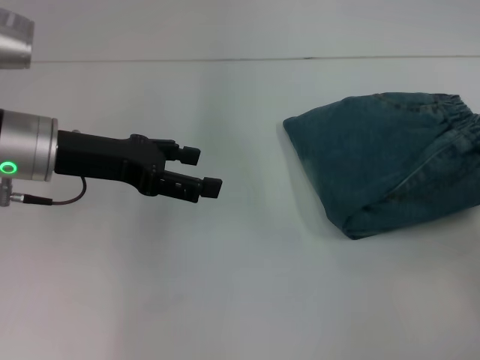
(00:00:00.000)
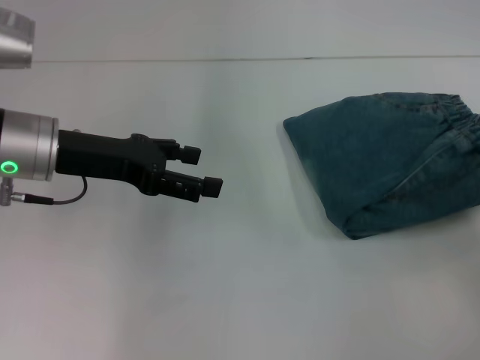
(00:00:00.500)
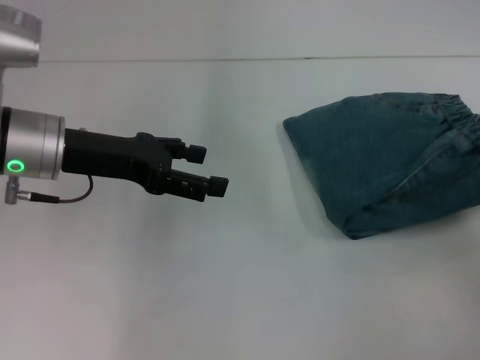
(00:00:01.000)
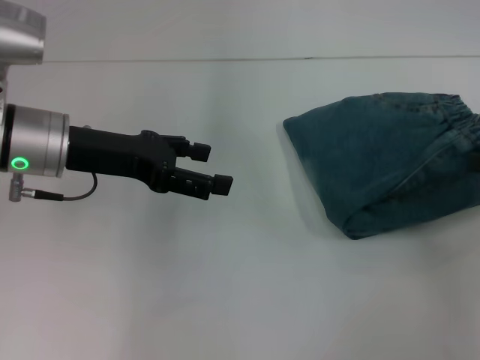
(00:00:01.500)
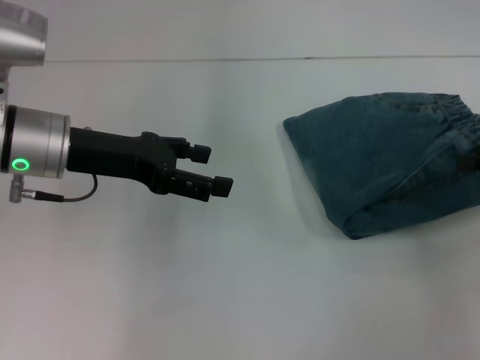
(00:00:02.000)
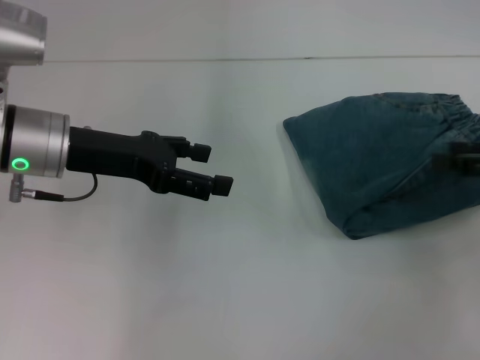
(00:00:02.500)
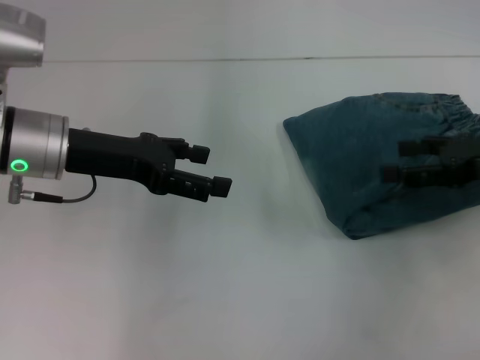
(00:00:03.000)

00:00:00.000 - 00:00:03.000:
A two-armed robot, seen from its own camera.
00:00:00.000 - 00:00:01.500: The right gripper goes roughly 5 cm to the left.
00:00:01.500 - 00:00:03.000: The right gripper goes approximately 5 cm to the left.

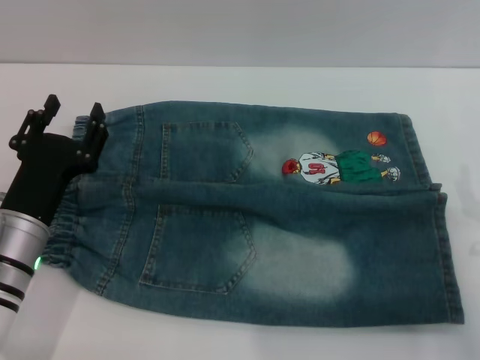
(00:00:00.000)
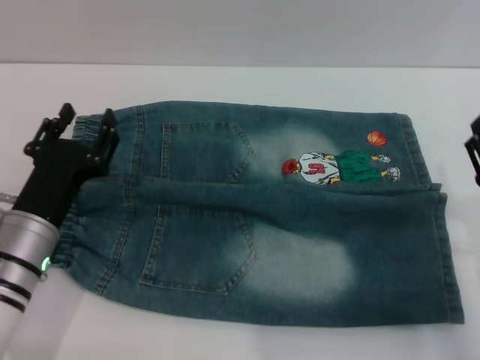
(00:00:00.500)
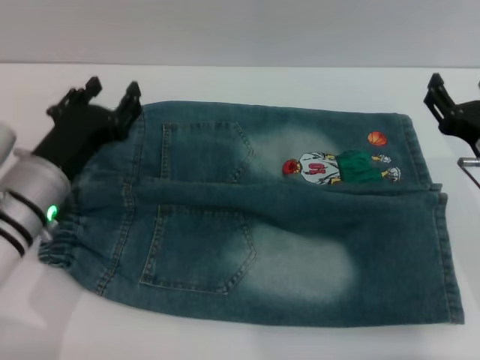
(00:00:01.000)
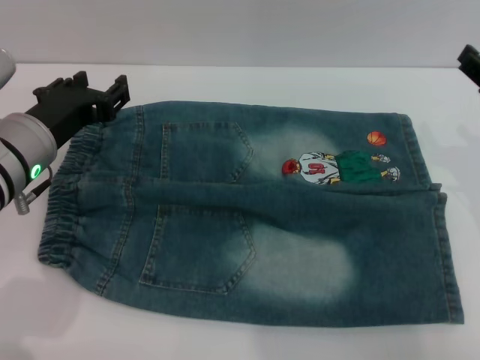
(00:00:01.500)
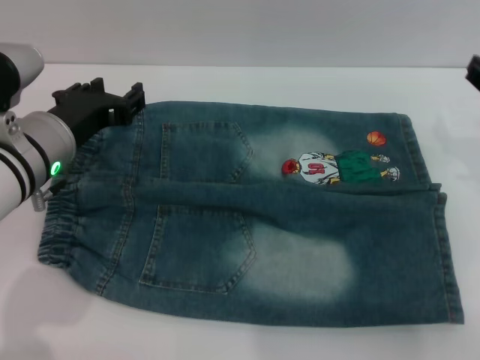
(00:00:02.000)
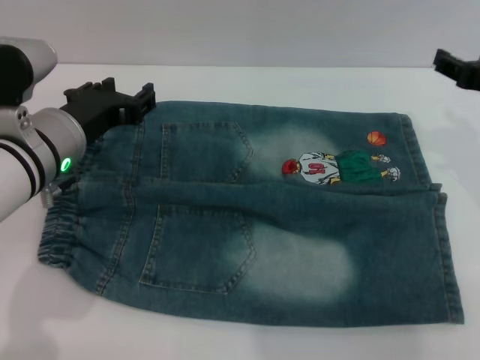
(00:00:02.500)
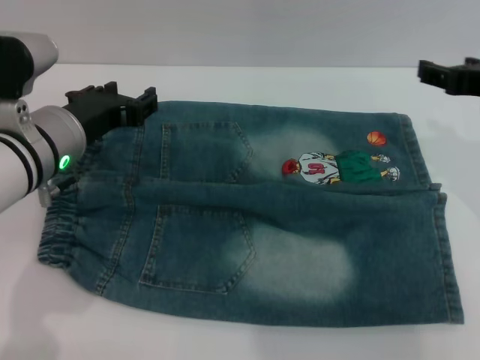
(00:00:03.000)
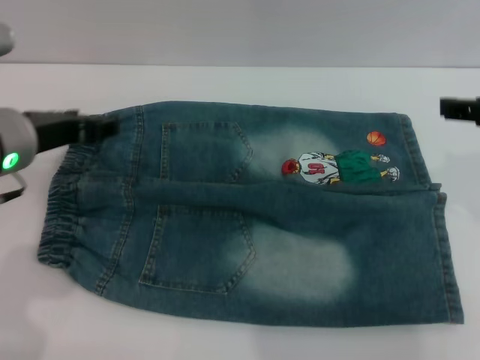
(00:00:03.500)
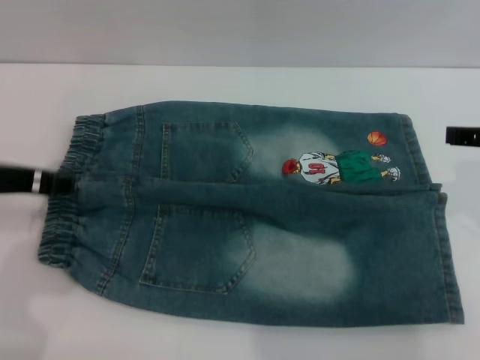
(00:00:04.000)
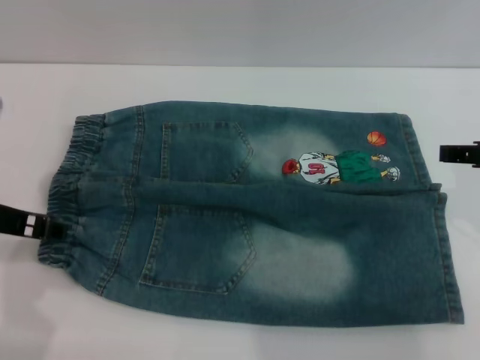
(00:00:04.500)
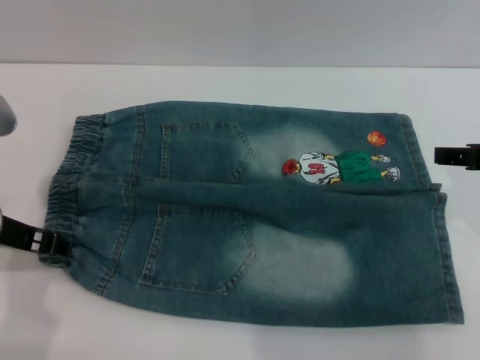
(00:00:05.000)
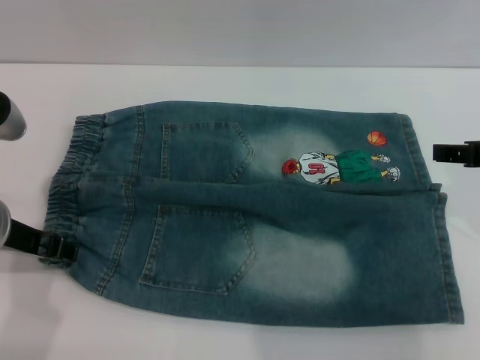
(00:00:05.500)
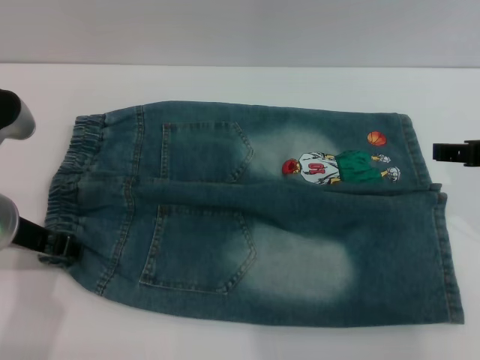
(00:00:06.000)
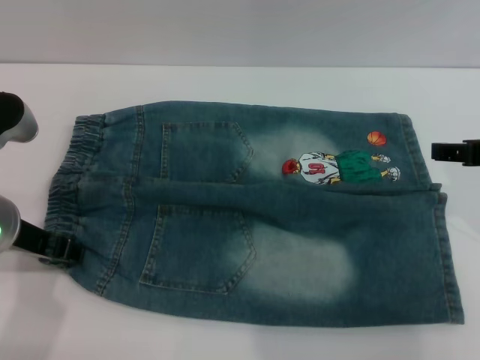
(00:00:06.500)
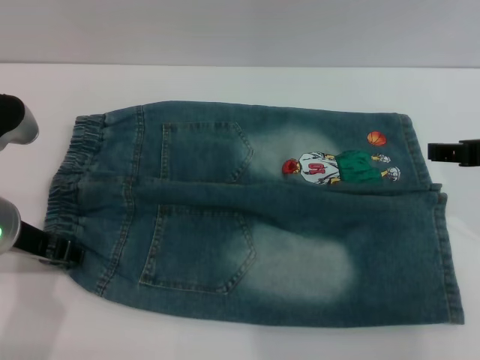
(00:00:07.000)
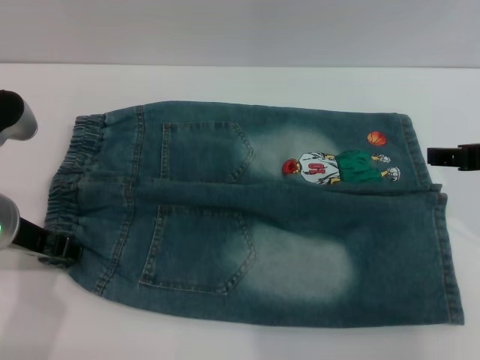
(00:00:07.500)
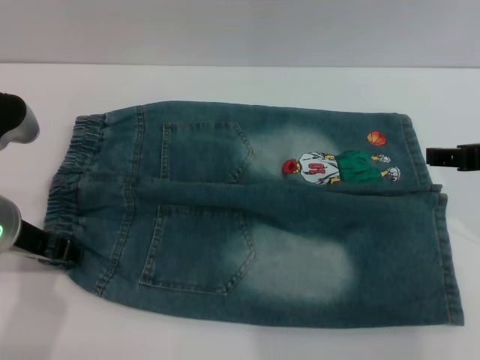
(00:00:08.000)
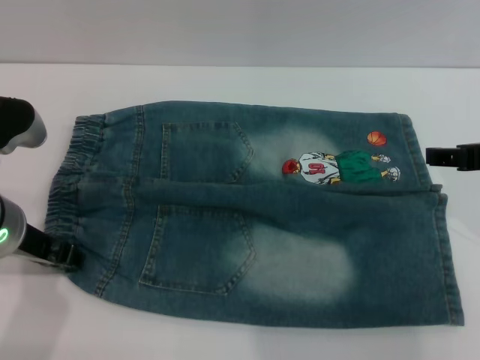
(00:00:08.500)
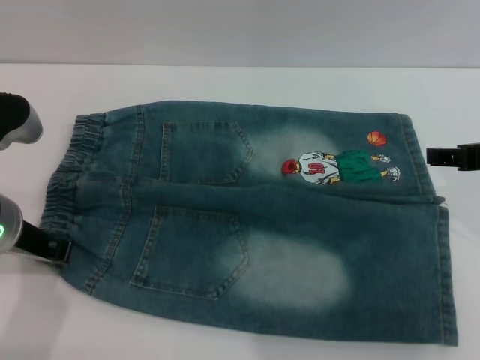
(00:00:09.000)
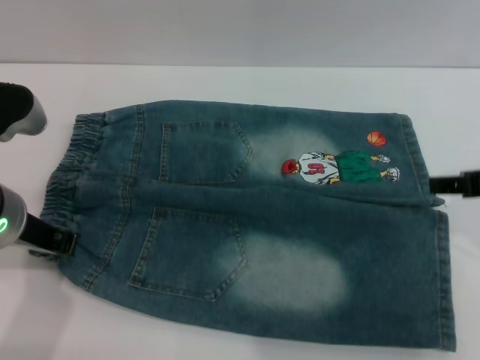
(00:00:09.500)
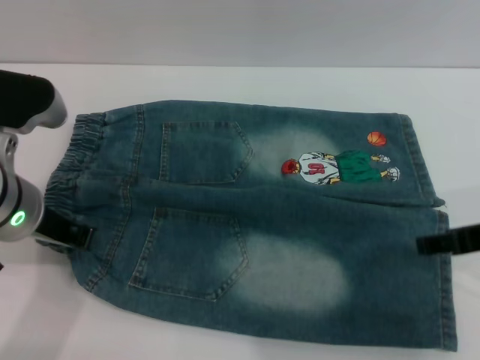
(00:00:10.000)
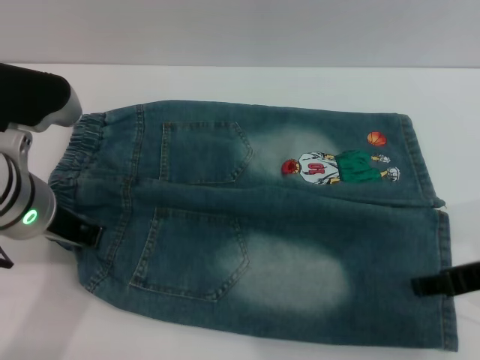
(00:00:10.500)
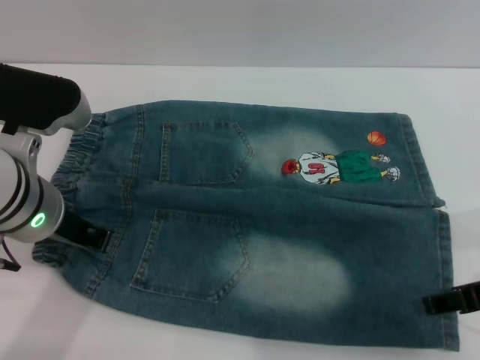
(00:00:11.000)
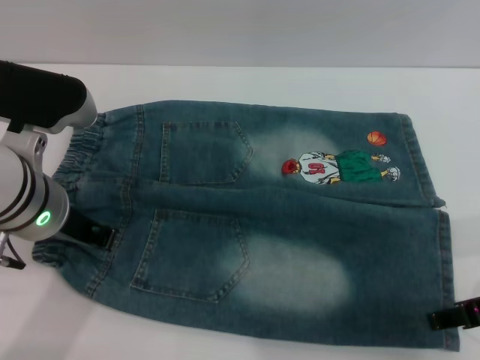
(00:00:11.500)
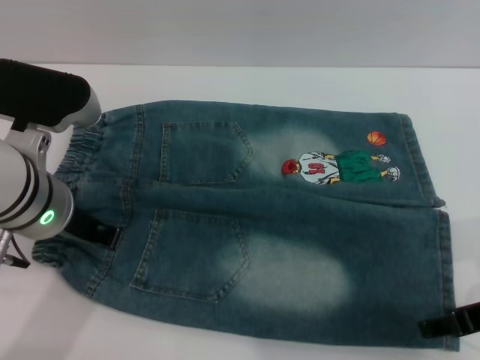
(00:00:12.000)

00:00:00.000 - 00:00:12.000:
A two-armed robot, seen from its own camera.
00:00:00.000 - 00:00:02.000: The left gripper goes about 10 cm upward and forward.
00:00:02.000 - 00:00:04.000: The right gripper travels upward by about 10 cm, while the left gripper is displaced upward by some 5 cm.
00:00:04.000 - 00:00:06.000: The grippers stay close to where they were, moving slightly.
00:00:06.000 - 00:00:08.000: Both grippers stay about where they are.
00:00:08.000 - 00:00:10.000: The left gripper closes.
00:00:10.000 - 00:00:12.000: There are only small adjustments of the grippers.

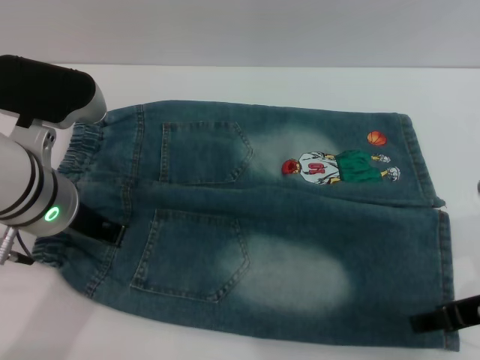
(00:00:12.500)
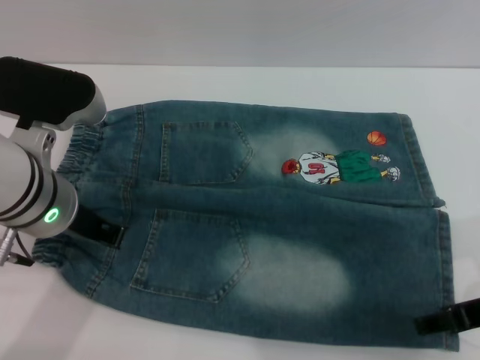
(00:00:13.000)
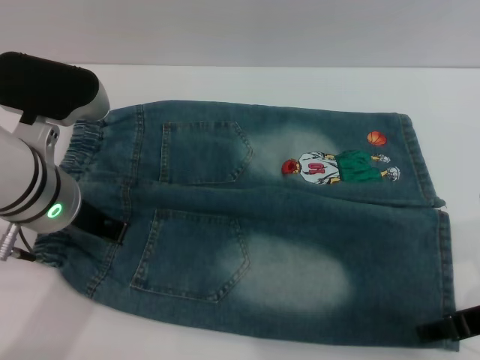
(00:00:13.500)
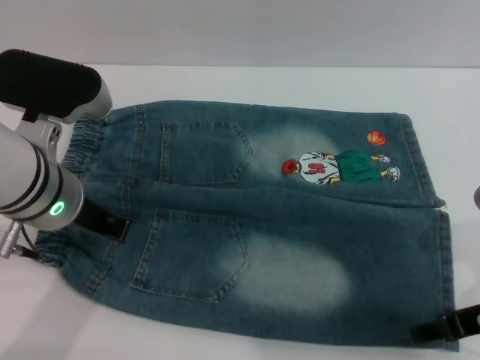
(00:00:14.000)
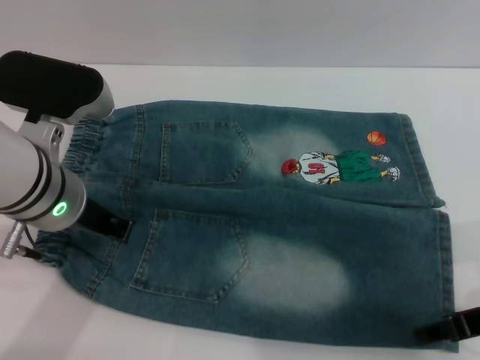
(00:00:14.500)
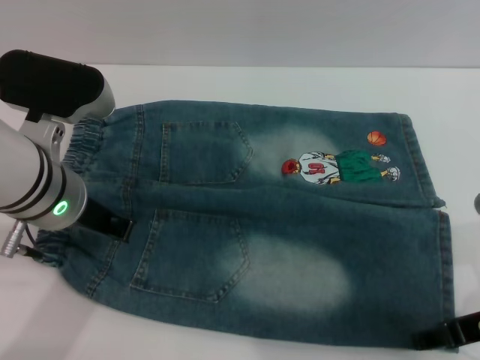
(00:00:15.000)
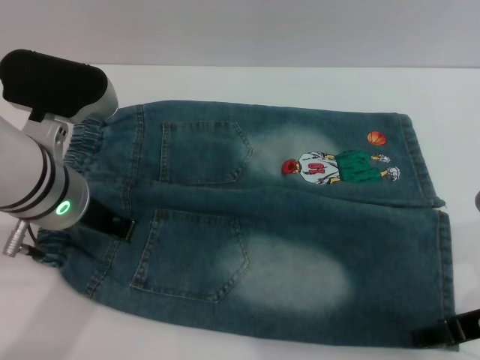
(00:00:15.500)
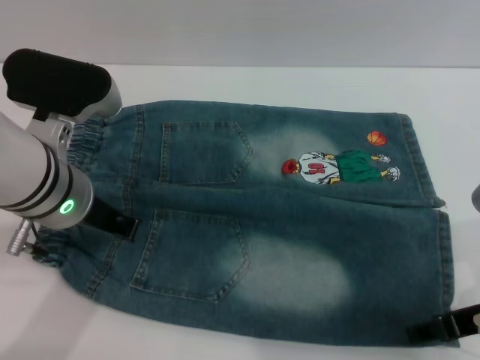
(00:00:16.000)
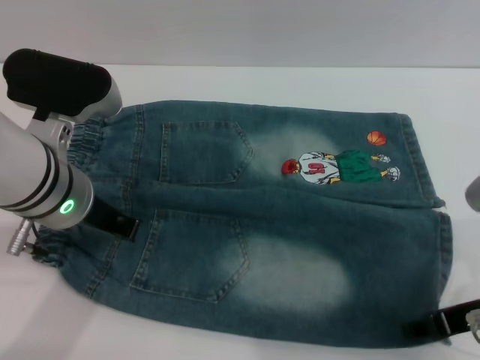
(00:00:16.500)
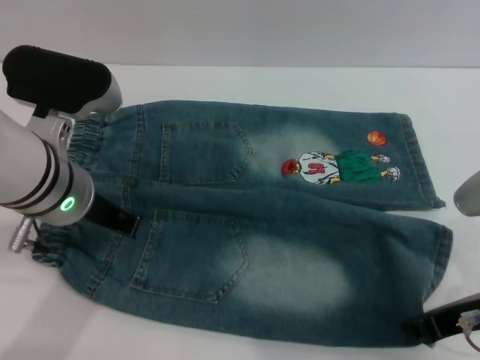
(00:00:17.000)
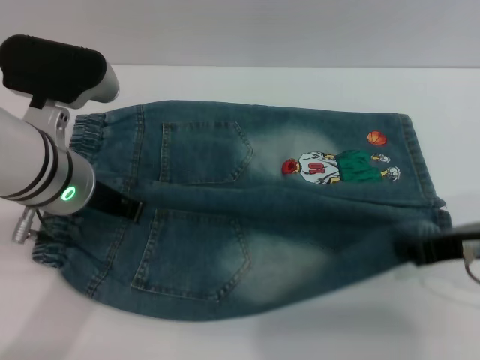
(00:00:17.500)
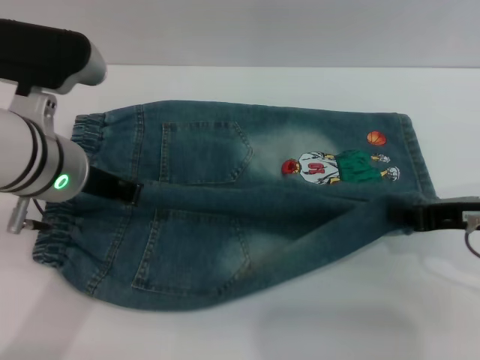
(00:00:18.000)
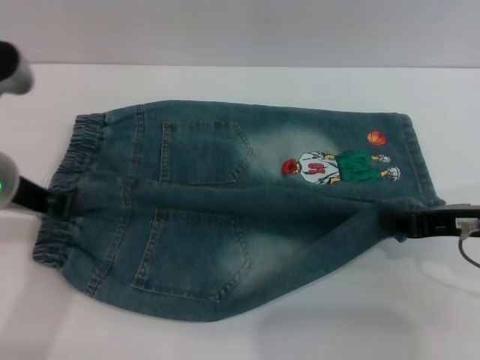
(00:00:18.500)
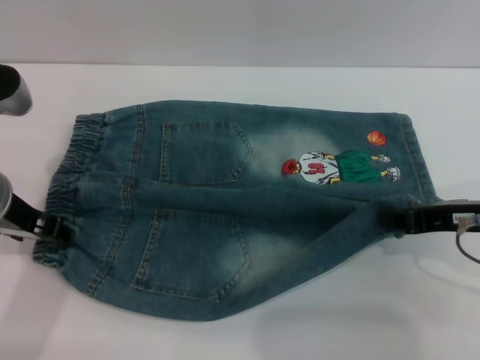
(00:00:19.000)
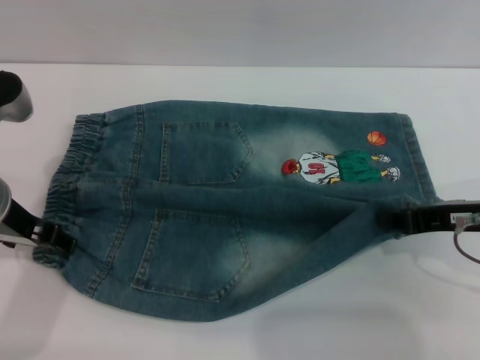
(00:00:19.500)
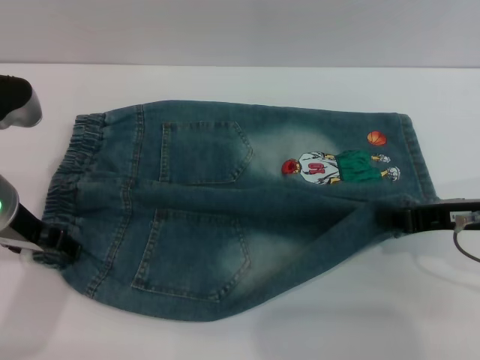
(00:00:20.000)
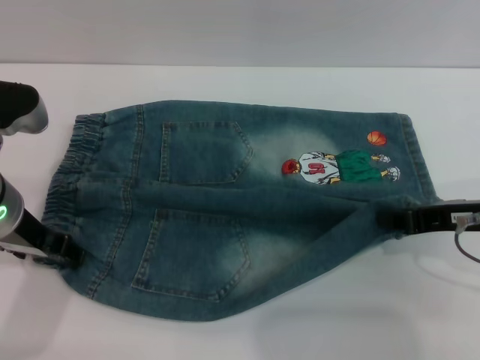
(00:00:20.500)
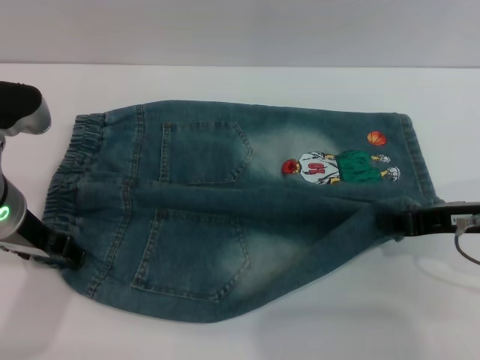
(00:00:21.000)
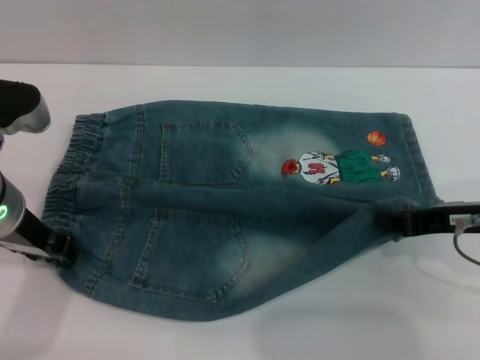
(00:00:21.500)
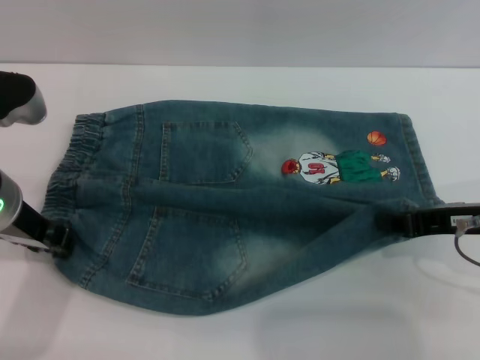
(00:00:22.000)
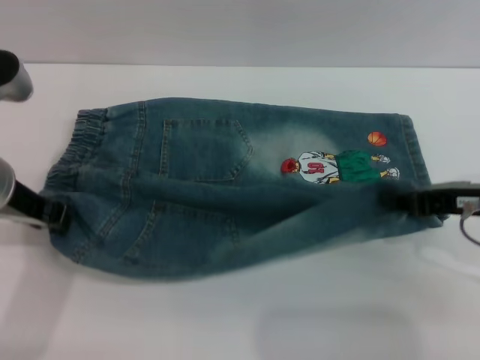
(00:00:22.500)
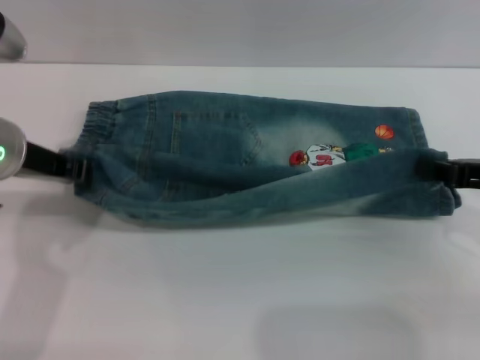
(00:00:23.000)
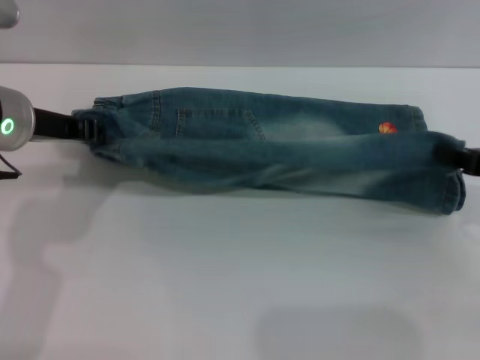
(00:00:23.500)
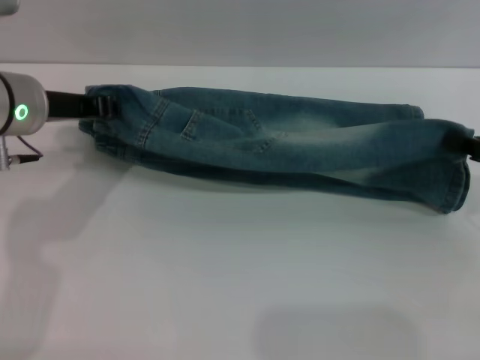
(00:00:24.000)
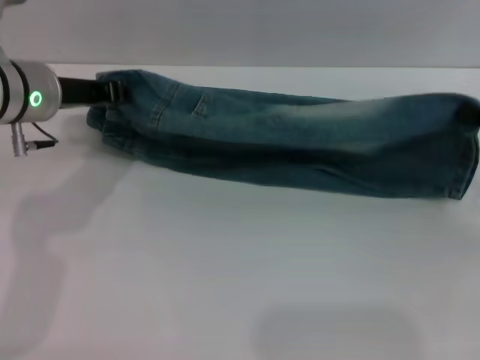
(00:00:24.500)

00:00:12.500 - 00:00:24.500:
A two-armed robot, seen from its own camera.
00:00:12.500 - 00:00:16.500: Both grippers stay about where they are.
00:00:16.500 - 00:00:18.500: The right gripper closes up. The left gripper changes place by some 5 cm.
00:00:18.500 - 00:00:20.500: The left gripper opens.
00:00:20.500 - 00:00:22.500: The left gripper closes.
00:00:22.500 - 00:00:24.500: The right gripper shifts roughly 10 cm to the right, while the left gripper is displaced forward by roughly 5 cm.
